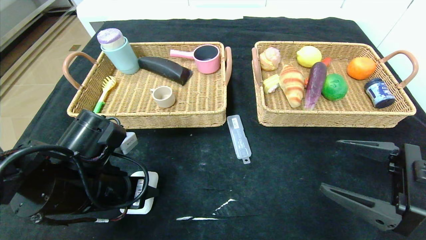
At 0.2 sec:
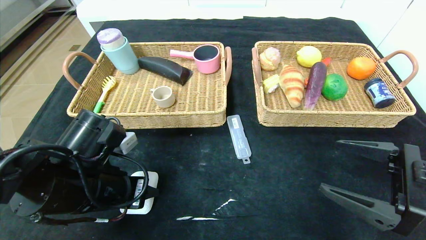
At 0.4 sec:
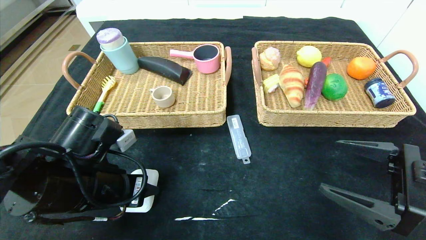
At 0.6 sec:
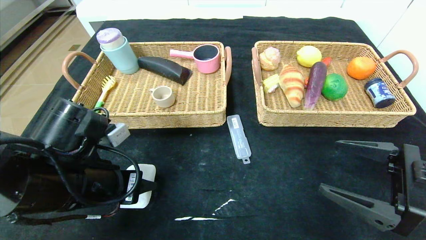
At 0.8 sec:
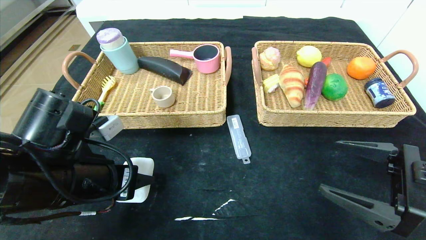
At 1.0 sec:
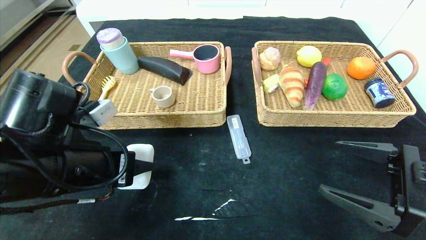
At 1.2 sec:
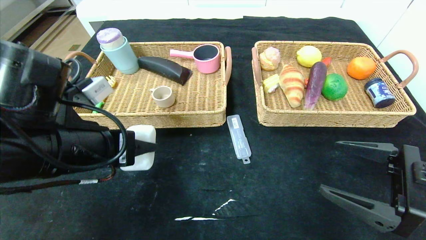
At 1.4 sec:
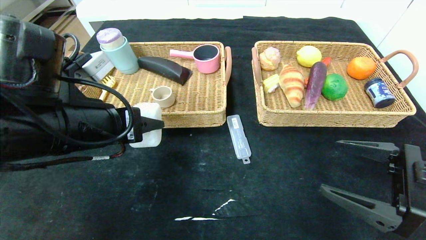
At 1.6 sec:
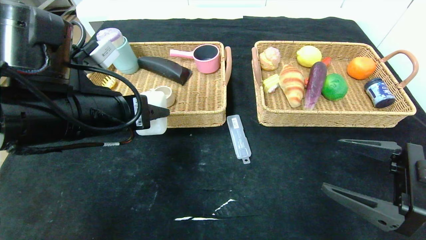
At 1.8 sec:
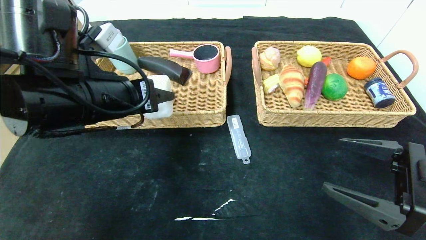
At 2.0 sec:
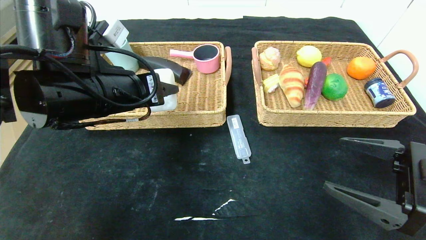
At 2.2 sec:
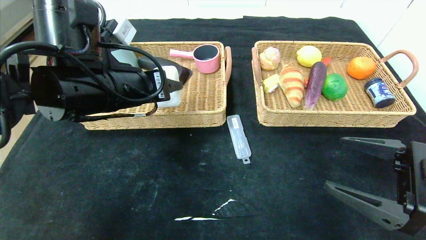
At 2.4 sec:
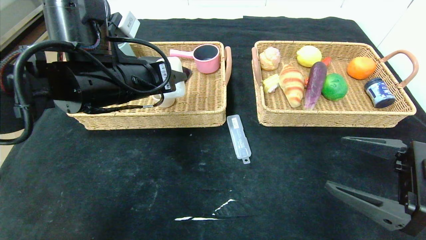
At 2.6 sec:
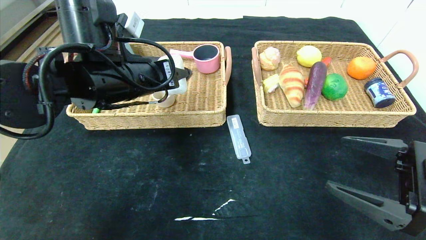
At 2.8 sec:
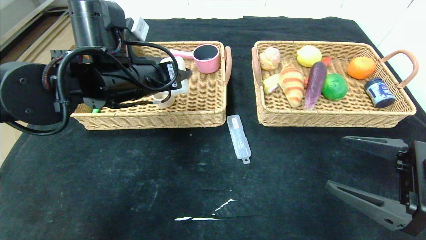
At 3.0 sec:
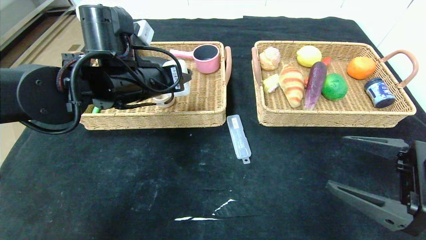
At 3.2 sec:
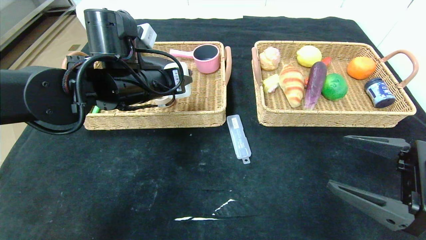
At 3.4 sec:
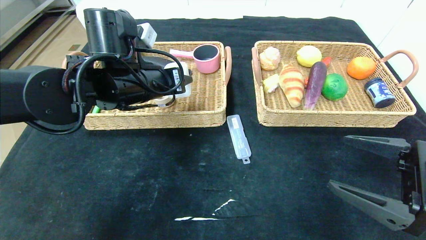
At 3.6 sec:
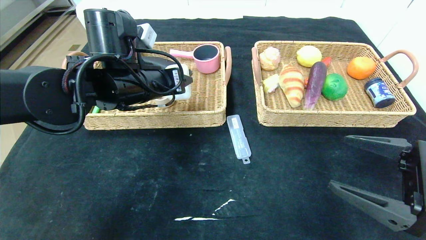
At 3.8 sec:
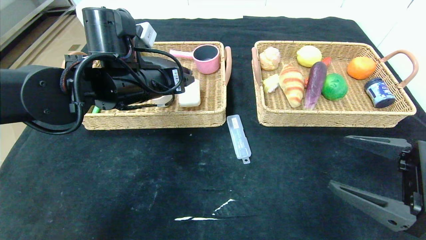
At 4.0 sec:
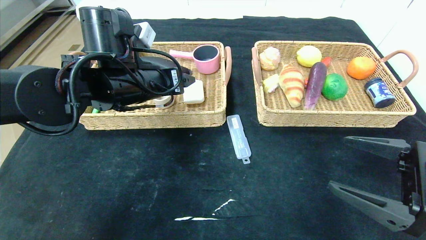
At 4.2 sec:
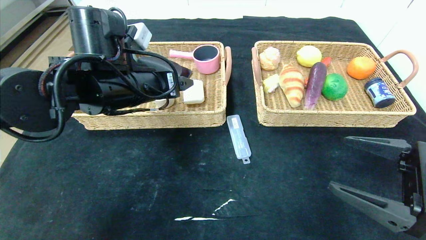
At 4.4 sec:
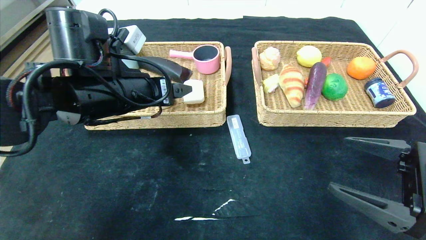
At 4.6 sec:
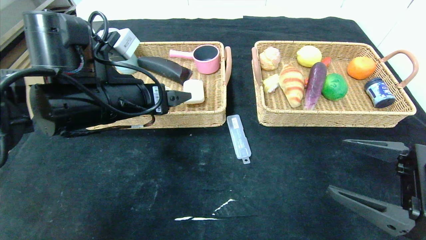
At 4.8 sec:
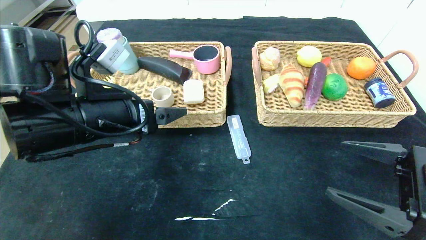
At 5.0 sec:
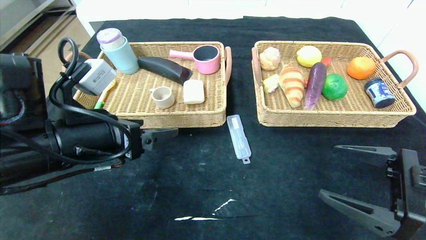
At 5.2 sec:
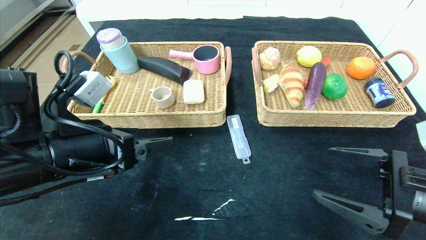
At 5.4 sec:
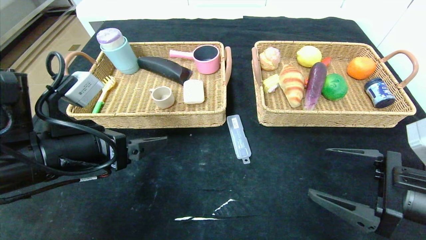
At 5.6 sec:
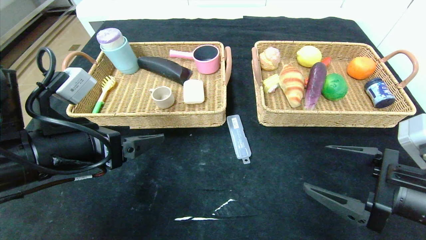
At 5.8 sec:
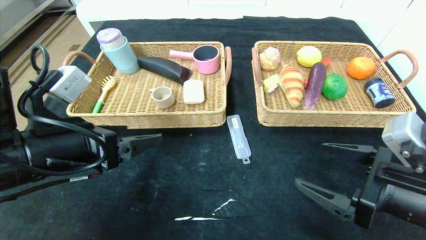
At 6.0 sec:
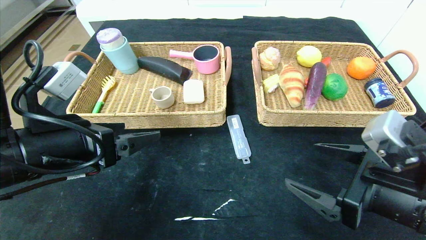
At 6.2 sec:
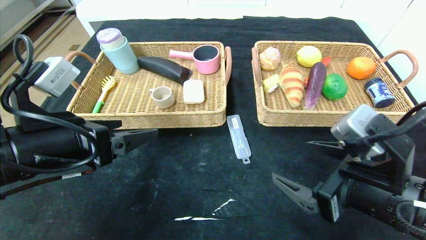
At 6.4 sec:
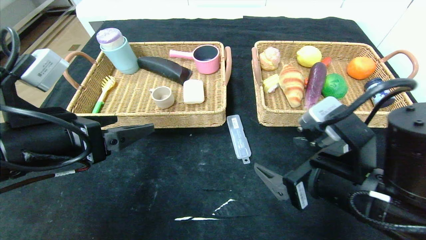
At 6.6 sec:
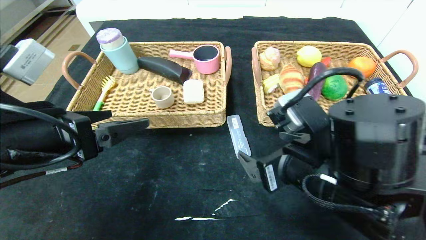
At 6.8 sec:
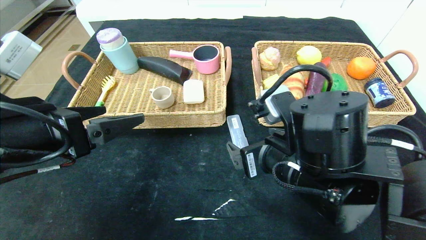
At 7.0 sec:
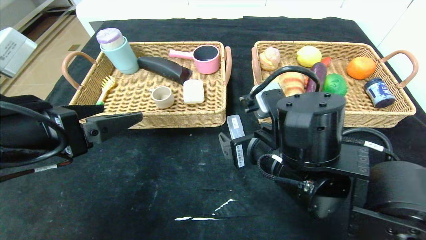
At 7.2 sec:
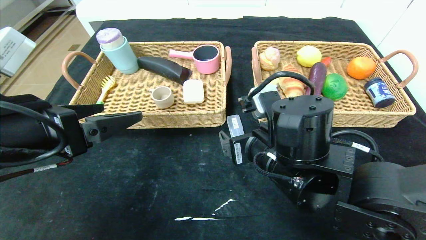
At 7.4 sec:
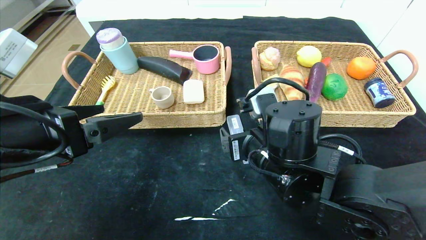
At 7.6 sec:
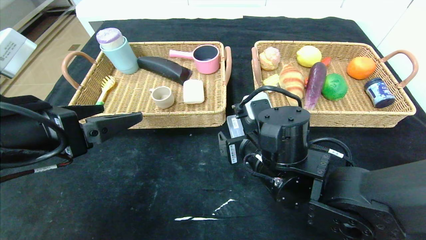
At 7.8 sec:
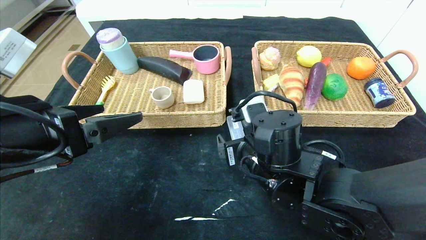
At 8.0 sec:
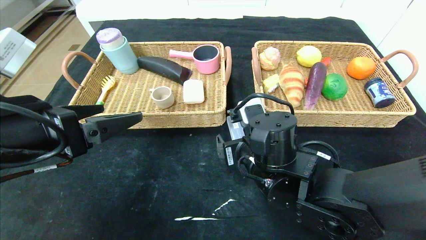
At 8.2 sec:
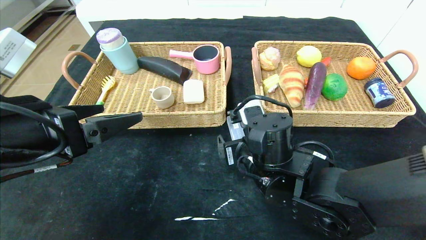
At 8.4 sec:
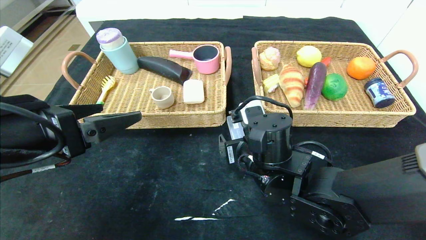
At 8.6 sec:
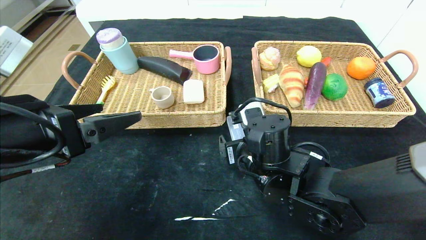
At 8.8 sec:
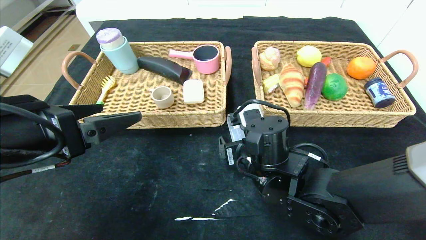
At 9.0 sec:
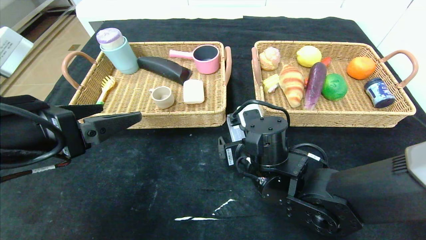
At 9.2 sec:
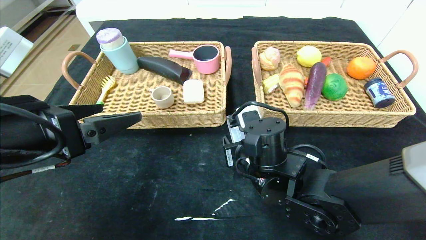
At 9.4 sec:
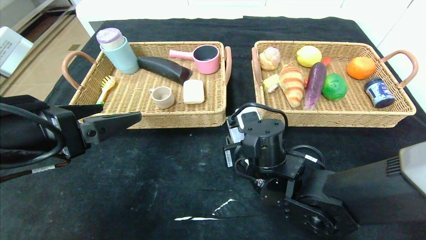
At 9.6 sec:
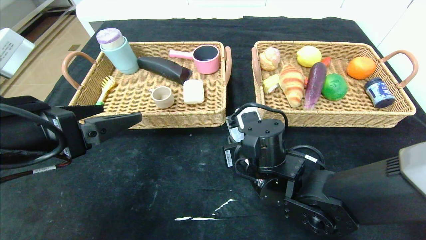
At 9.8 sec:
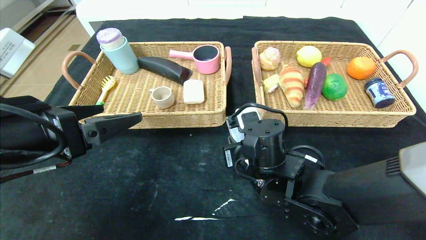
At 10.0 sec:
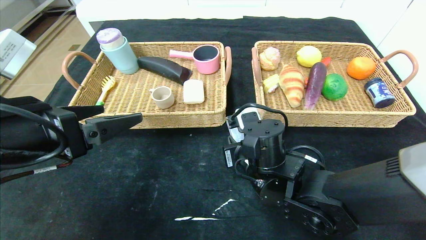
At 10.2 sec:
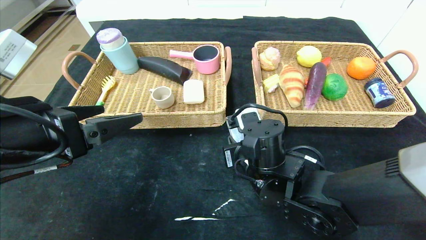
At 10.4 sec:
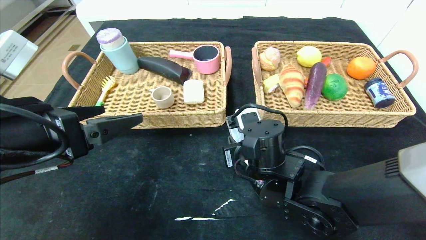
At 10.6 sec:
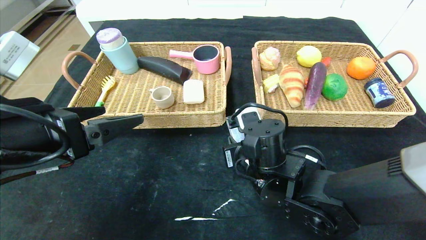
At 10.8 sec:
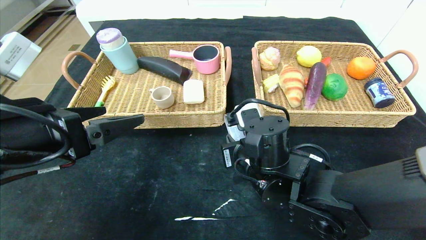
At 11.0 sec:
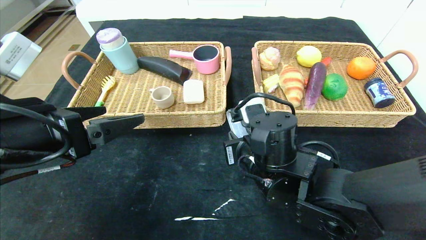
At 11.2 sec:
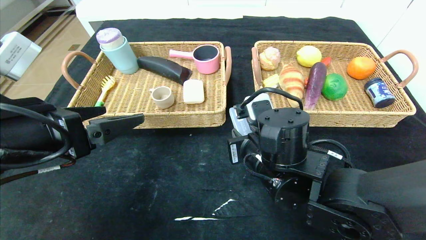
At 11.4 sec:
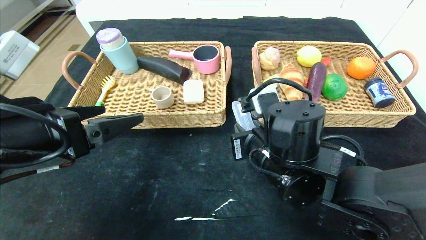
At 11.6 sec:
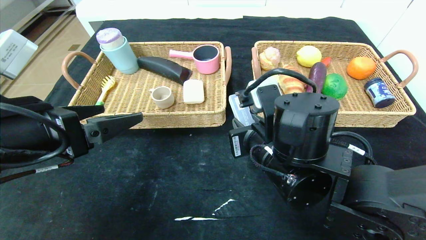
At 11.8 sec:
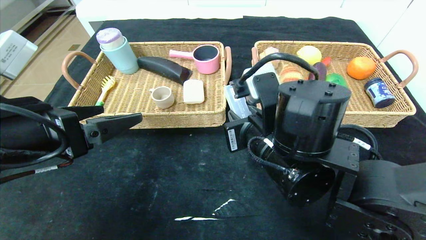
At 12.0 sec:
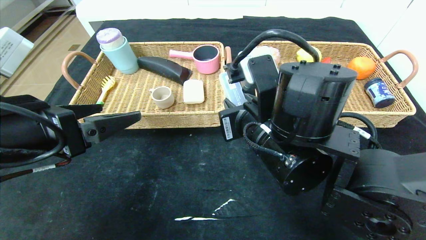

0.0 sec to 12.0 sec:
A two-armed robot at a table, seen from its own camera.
Step, 0.0 sec to 3.8 sec: Grasp the white eraser and put it in the left basket.
0.0 sec to 1.6 sec: The left gripper goes some 10 cm upward.
1.6 sec to 3.0 sec: The left gripper heads forward, covering about 10 cm.
3.0 sec to 4.4 sec: The left gripper opens its fingers.
4.4 sec to 6.0 sec: The right gripper shifts about 5 cm to the left. The left gripper goes about 10 cm backward and to the left.
6.0 sec to 7.6 sec: The right gripper goes some 20 cm to the left and forward.
7.6 sec to 9.0 sec: There are only small adjustments of the grippers.
9.0 sec to 10.4 sec: The right gripper closes.
10.4 sec to 12.0 sec: The right gripper heads upward, covering approximately 10 cm.

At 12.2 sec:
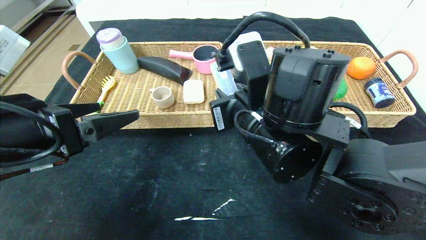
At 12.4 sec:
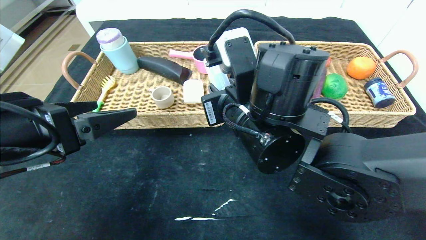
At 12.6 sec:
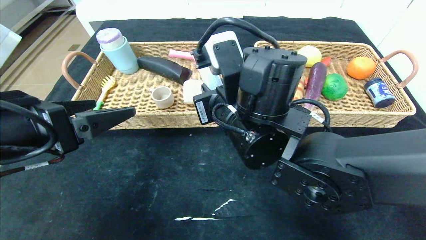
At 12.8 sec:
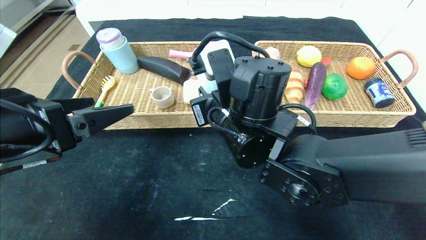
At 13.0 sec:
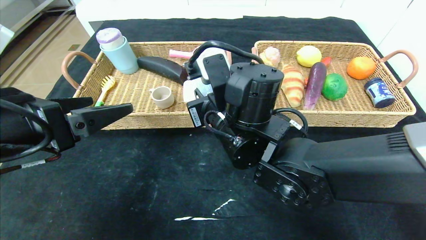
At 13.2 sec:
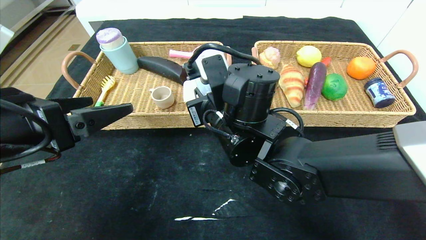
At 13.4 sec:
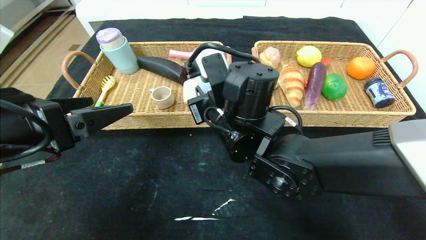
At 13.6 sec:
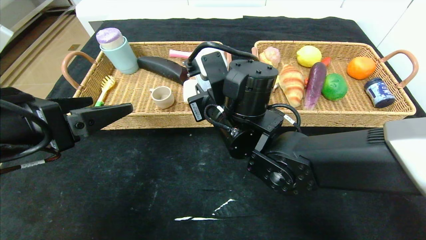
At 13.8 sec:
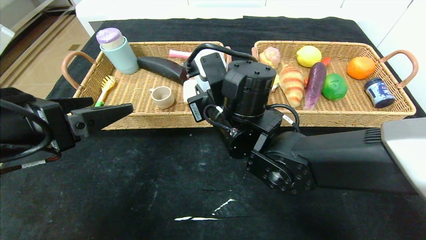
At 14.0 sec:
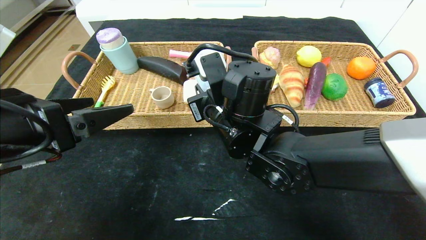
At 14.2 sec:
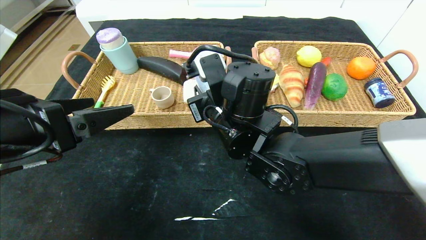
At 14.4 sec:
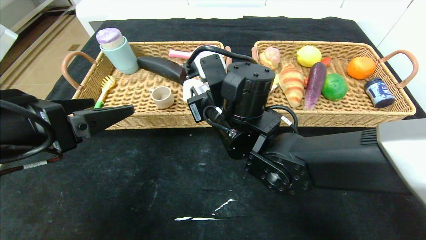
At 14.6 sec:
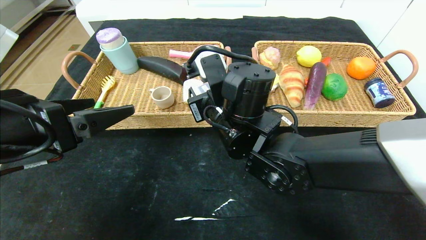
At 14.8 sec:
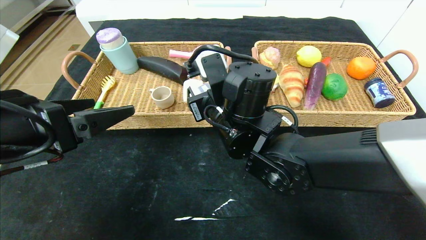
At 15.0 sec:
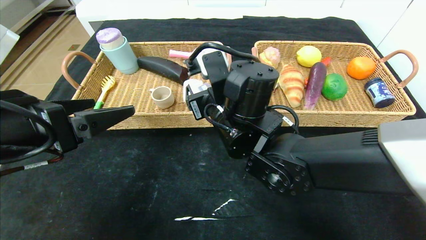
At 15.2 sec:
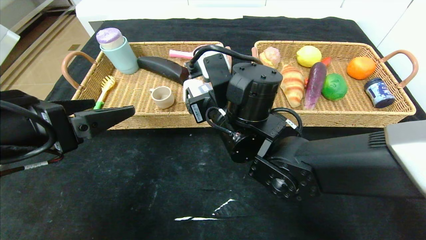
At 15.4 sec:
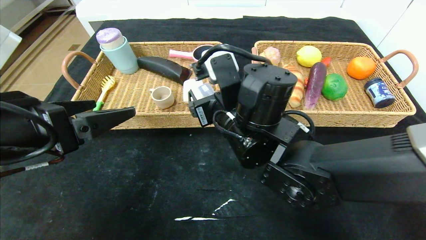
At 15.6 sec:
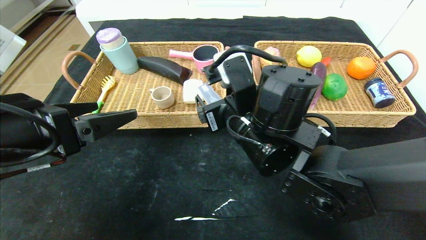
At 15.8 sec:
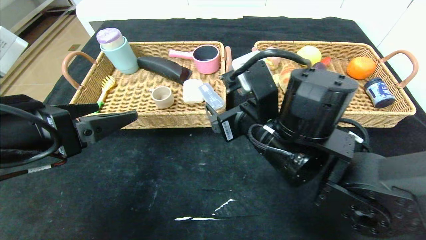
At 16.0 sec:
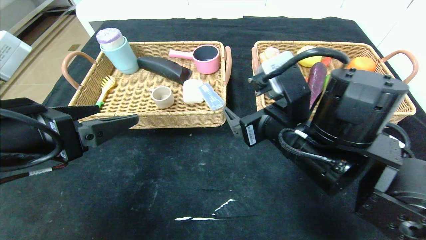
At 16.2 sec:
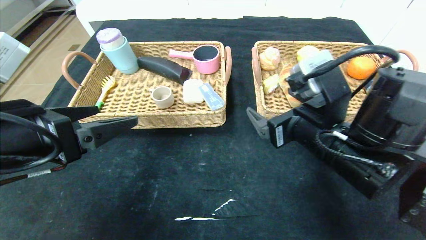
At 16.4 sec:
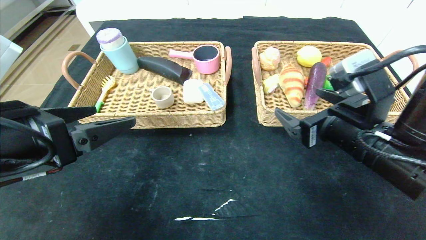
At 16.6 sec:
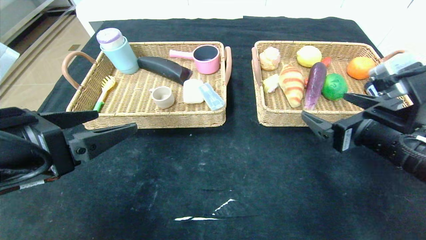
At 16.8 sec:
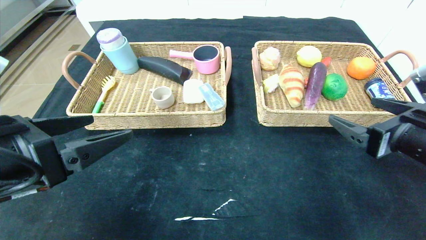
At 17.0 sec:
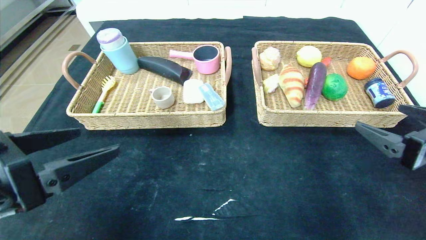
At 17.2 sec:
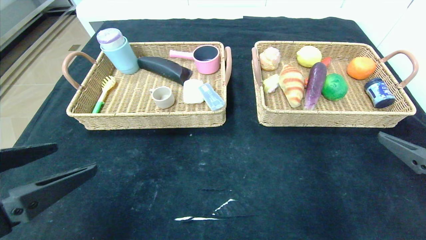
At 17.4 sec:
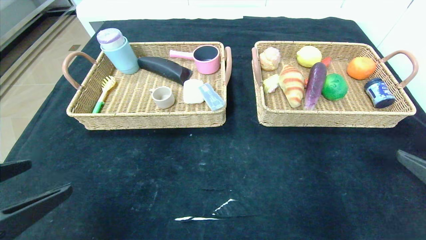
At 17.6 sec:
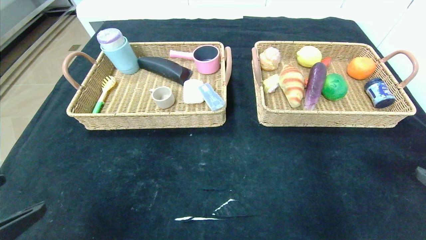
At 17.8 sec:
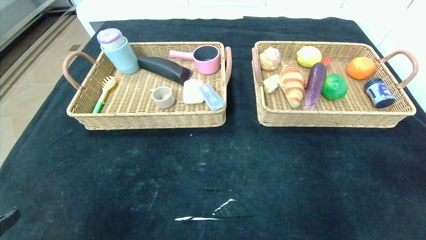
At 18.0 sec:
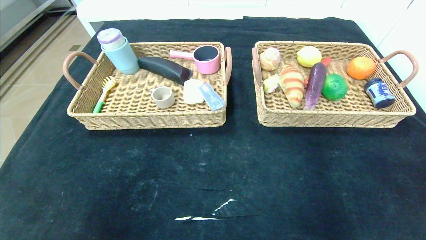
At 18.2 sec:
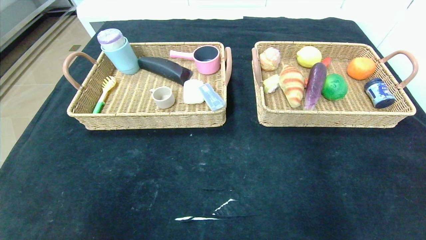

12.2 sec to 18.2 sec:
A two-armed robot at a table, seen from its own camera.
12.2 sec to 13.8 sec: The right gripper shifts approximately 5 cm forward.
13.8 sec to 15.2 sec: The right gripper opens its fingers.
15.2 sec to 16.6 sec: The right gripper shifts approximately 25 cm to the right.
16.6 sec to 18.2 sec: The left gripper shifts approximately 15 cm backward; the right gripper travels backward and to the right by roughly 25 cm.
